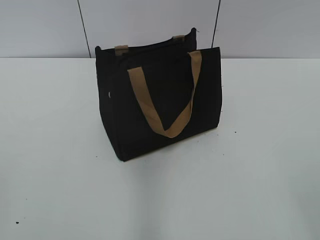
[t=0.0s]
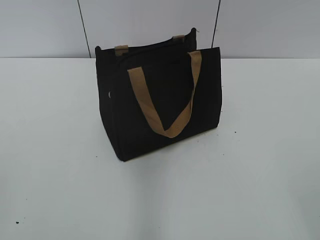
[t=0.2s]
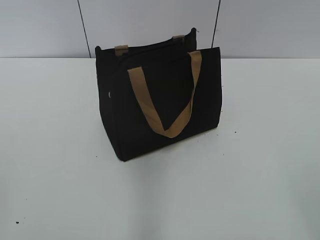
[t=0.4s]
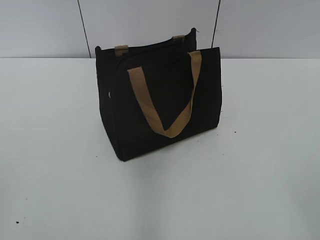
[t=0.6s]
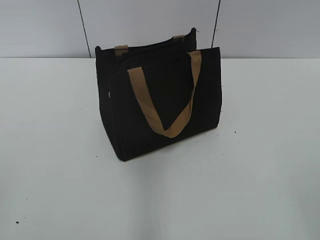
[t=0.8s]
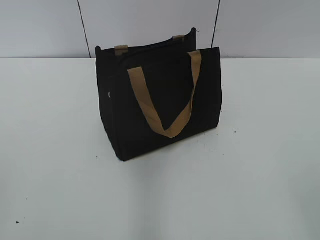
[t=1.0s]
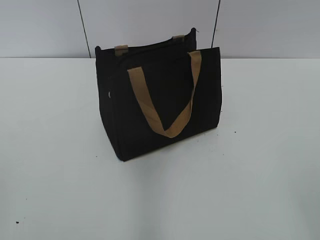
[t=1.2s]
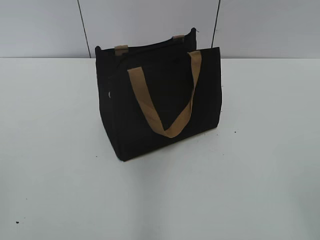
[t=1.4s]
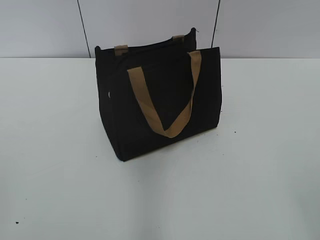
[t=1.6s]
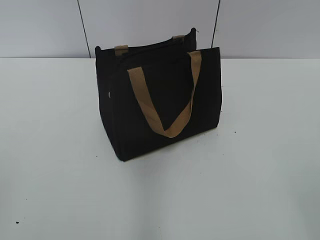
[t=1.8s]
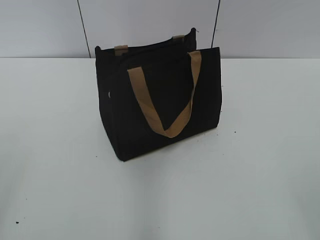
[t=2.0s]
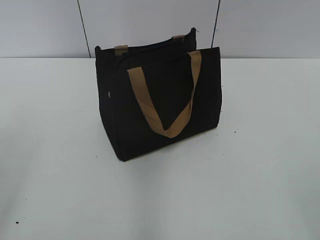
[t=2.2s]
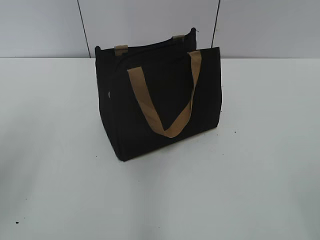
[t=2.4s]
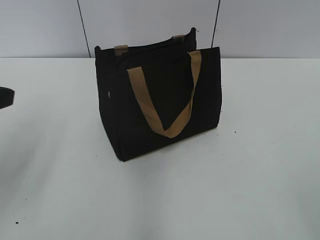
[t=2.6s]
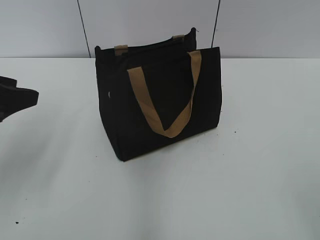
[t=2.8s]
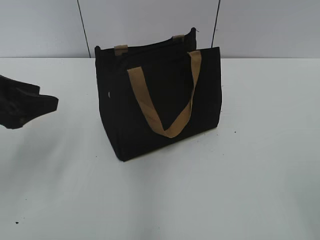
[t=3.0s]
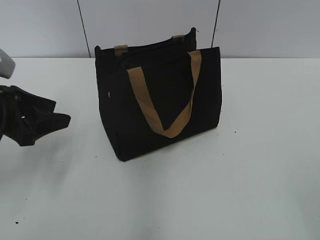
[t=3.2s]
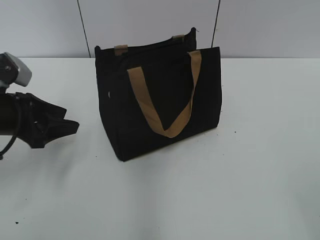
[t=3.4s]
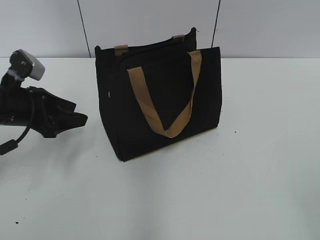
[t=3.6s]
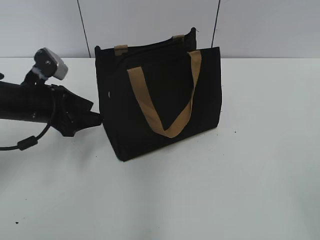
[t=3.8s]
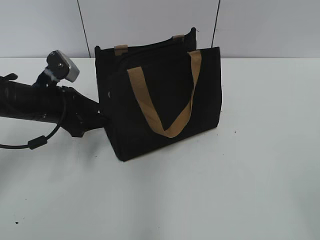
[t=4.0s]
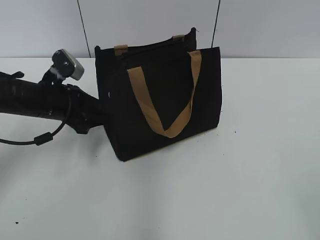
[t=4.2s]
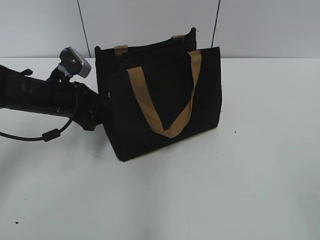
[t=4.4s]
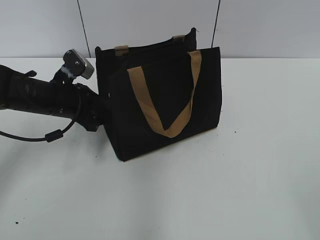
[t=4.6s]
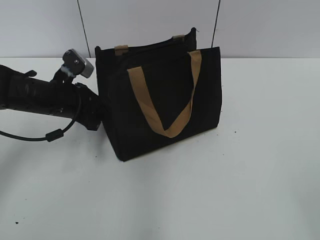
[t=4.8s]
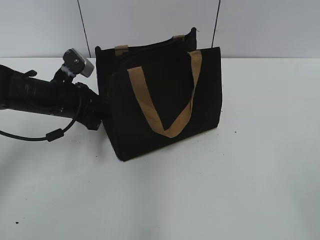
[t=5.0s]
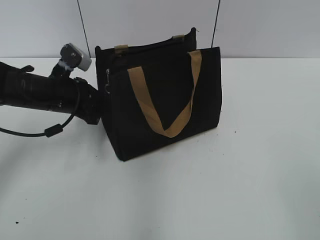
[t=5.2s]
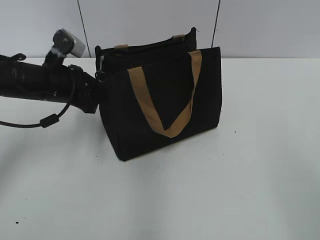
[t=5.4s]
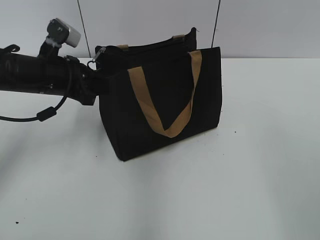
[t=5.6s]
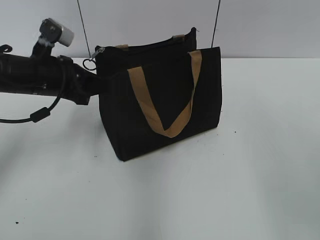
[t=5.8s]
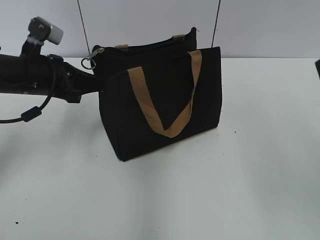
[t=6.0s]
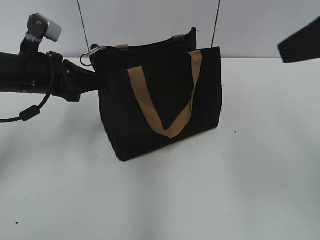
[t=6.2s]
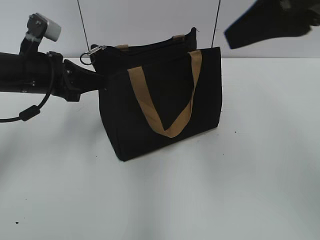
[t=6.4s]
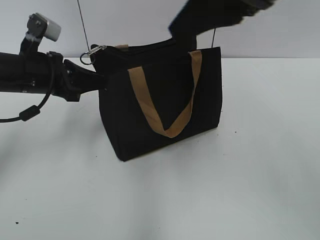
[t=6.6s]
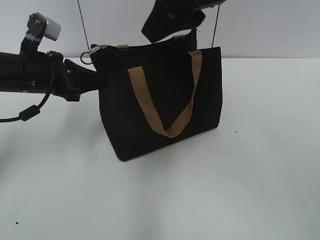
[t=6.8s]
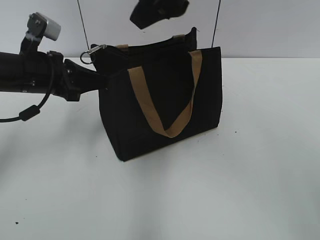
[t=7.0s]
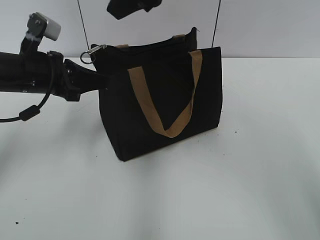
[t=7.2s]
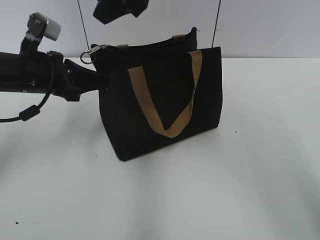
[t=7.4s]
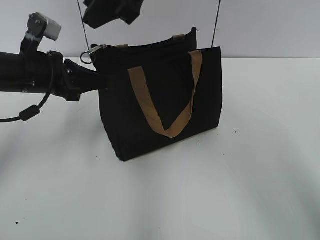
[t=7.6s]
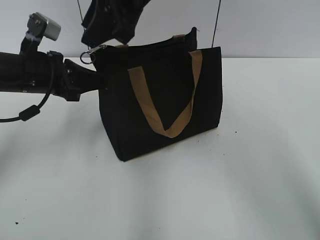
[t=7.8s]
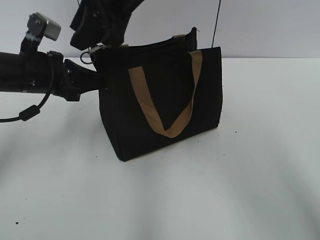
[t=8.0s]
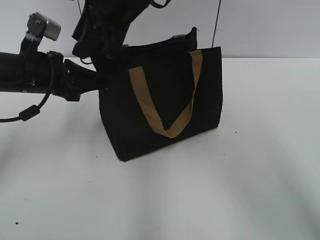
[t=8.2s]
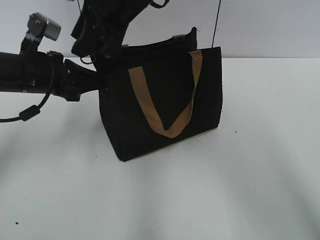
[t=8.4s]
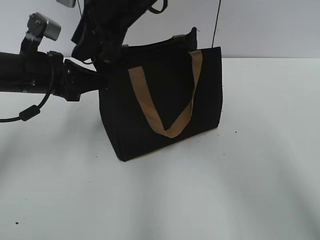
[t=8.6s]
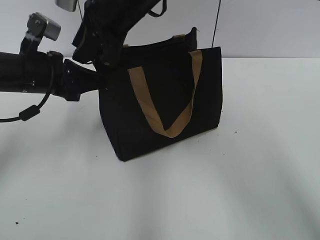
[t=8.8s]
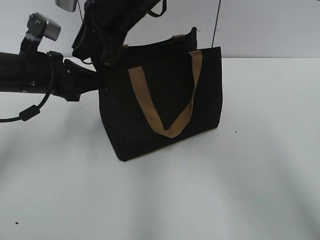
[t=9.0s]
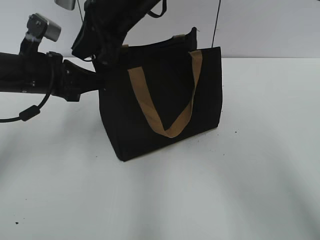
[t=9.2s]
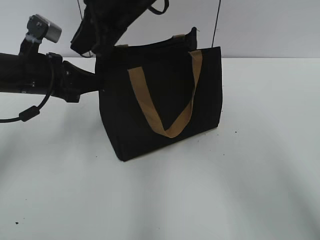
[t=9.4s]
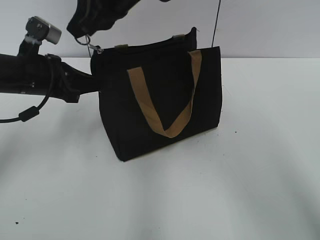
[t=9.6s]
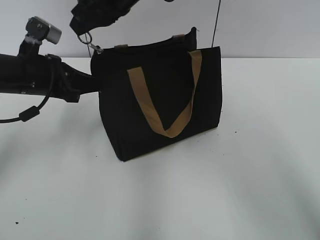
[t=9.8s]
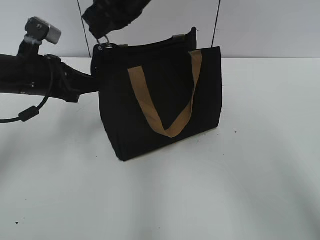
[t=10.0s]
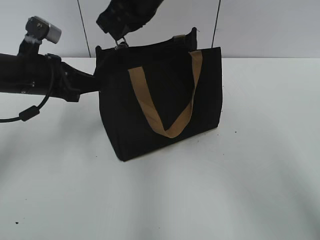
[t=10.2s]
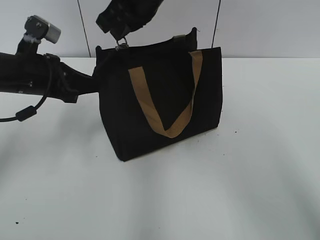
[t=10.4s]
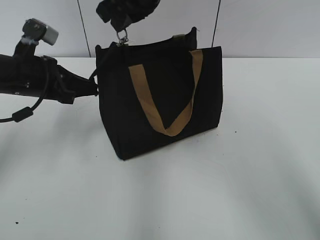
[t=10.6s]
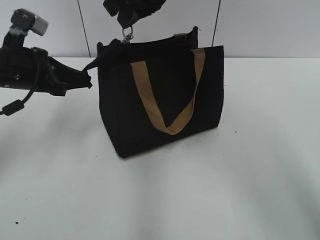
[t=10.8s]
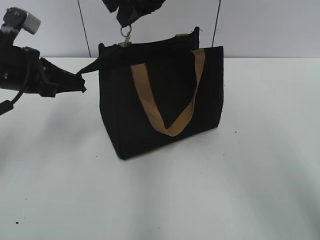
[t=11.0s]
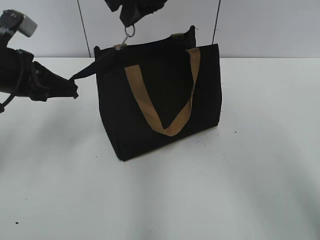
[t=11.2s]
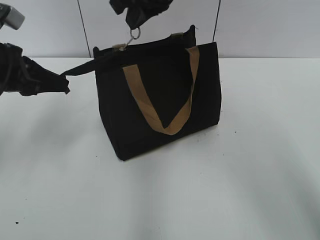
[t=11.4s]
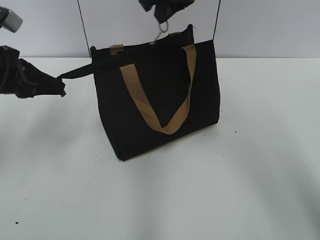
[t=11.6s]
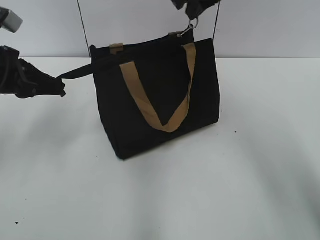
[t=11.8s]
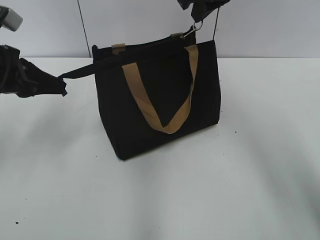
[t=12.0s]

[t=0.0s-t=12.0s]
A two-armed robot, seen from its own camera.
t=1.6s to t=3.0s: The left gripper moves forward, approximately 25 cm.
t=3.0s to t=4.4s: The left gripper travels forward, downward and to the right by about 15 cm.
t=4.4s to t=6.0s: The left gripper travels upward by roughly 5 cm, and closes.
t=6.0s to t=7.6s: The right gripper is displaced to the left and forward by roughly 30 cm.
t=7.6s to t=9.0s: The right gripper heads downward, covering some 5 cm.
t=10.4s to t=12.0s: The right gripper shifts roughly 10 cm to the right, while the left gripper moves about 5 cm.

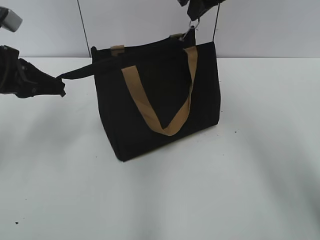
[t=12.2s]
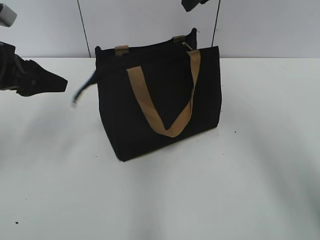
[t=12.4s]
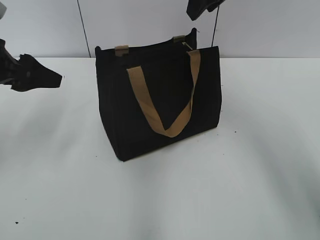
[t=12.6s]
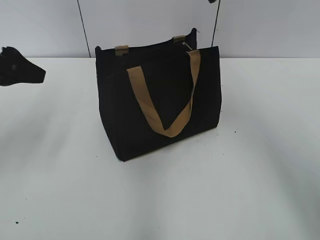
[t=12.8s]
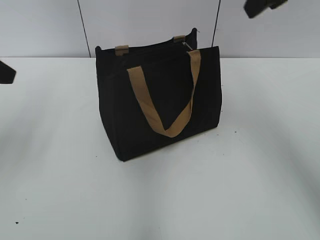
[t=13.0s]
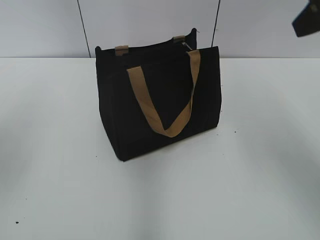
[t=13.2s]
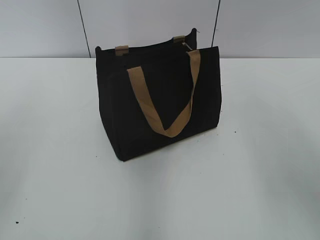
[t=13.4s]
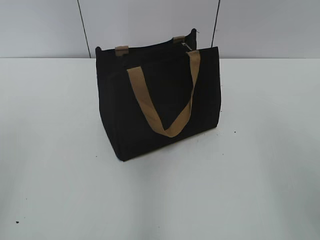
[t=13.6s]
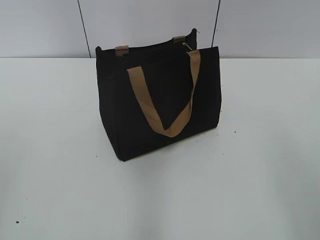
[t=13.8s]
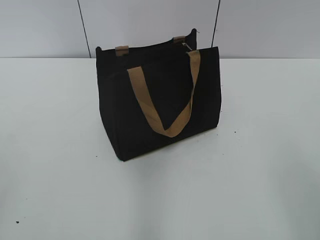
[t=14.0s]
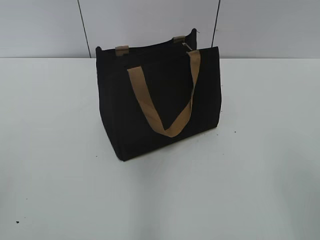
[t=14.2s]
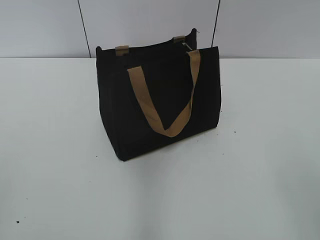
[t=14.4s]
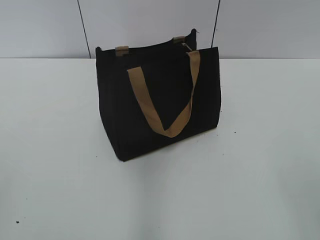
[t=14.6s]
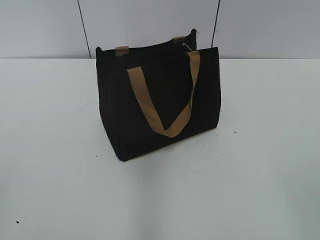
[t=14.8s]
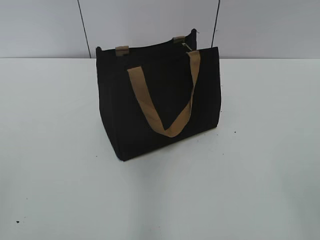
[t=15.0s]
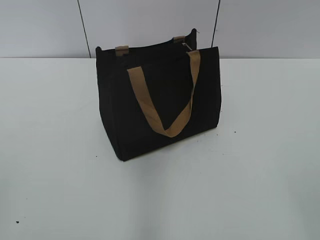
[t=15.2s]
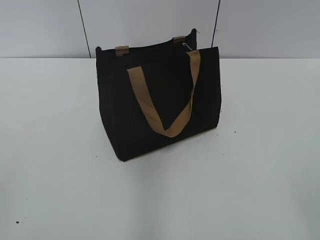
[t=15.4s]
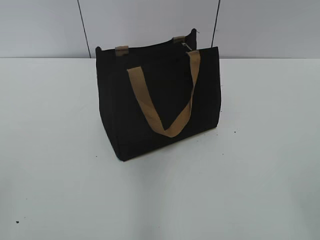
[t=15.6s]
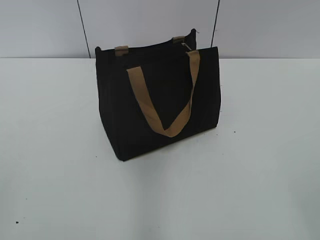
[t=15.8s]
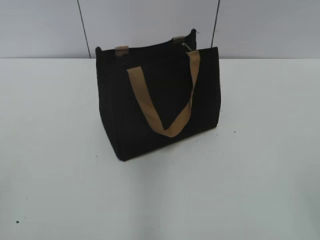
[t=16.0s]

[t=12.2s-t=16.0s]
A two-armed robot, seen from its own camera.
t=12.2s to t=13.4s: The right gripper moves backward and to the right, about 25 cm, and opens its fingers, while the left gripper heads backward and upward, covering about 15 cm, and opens its fingers.
